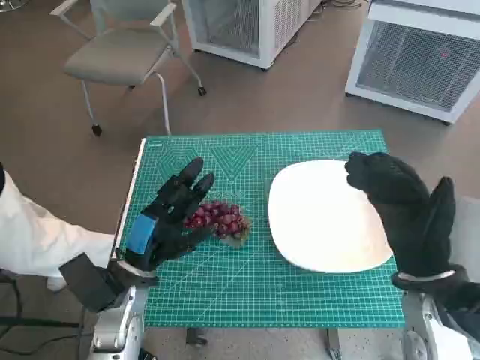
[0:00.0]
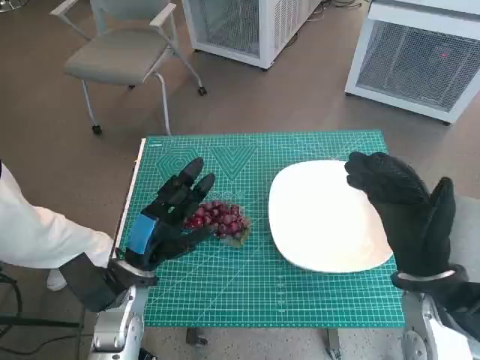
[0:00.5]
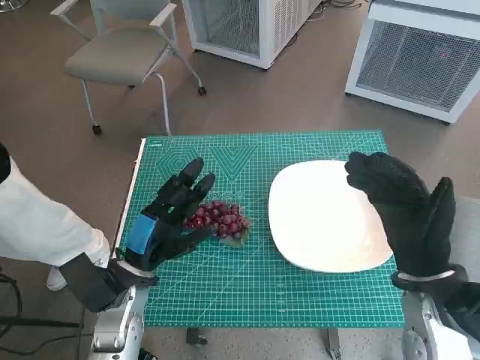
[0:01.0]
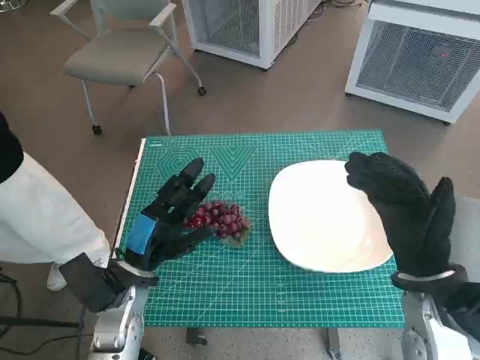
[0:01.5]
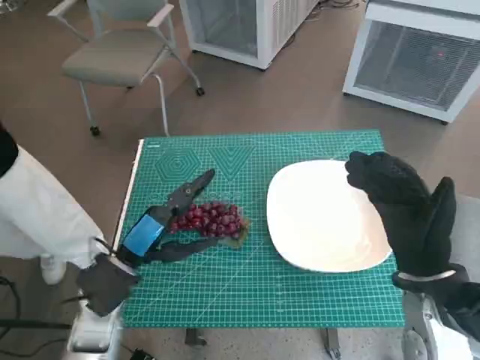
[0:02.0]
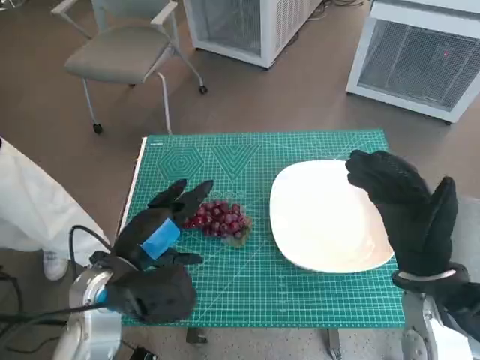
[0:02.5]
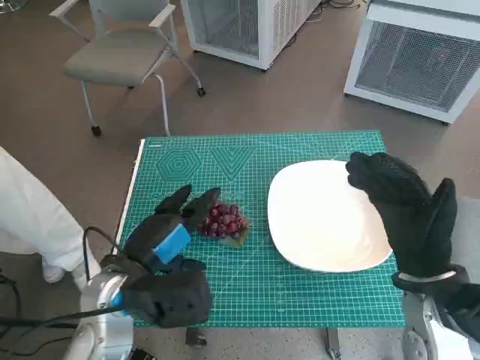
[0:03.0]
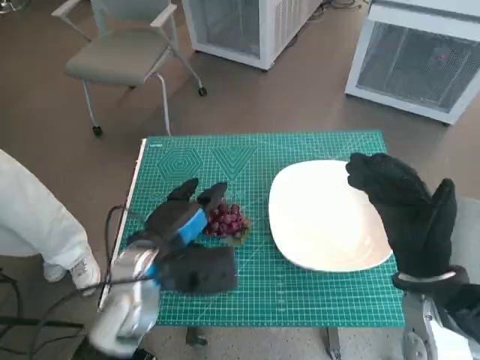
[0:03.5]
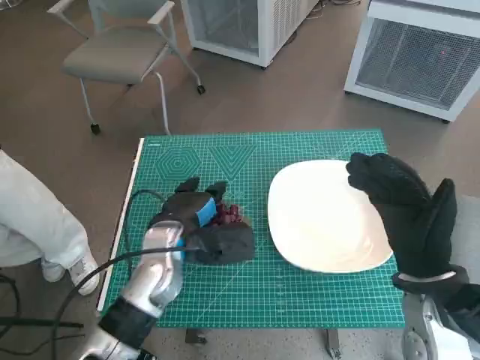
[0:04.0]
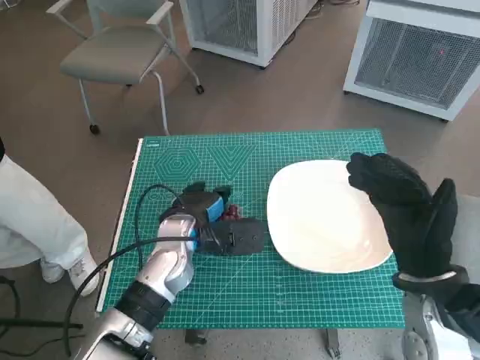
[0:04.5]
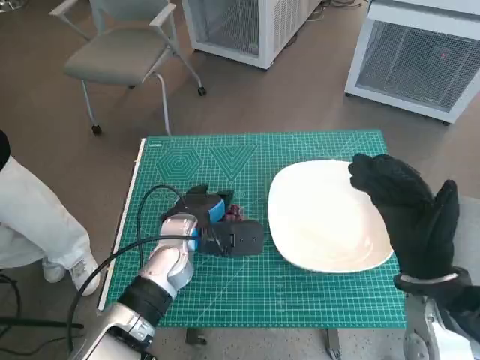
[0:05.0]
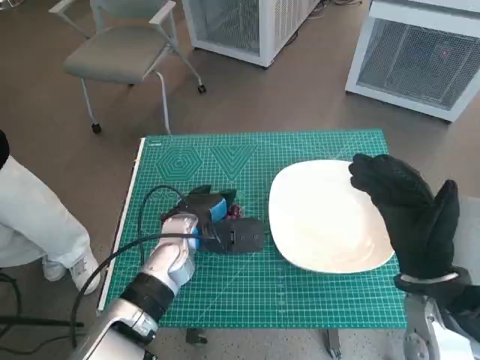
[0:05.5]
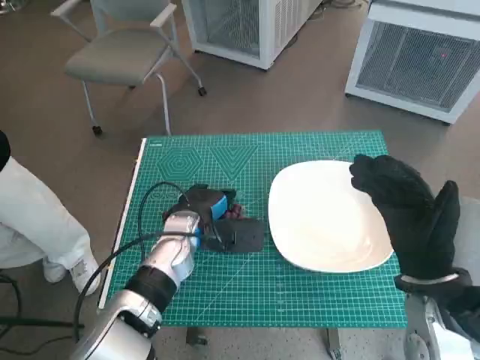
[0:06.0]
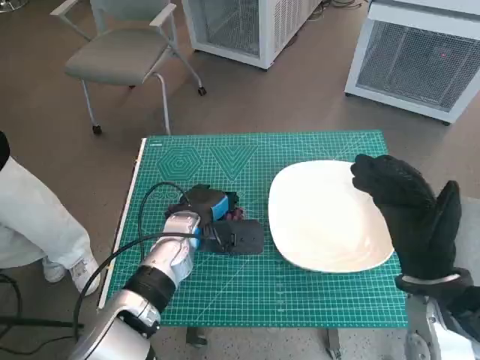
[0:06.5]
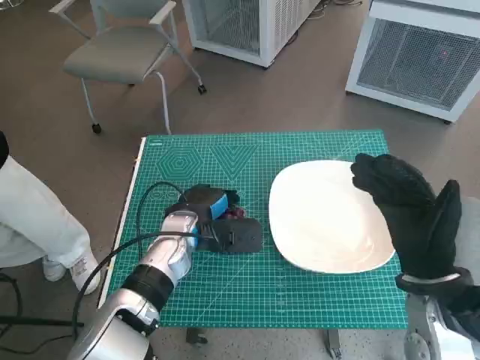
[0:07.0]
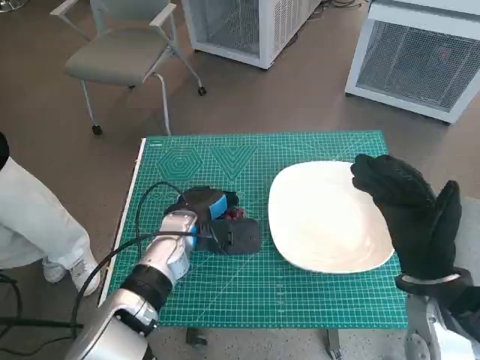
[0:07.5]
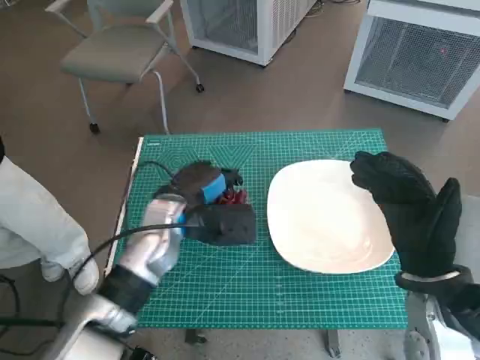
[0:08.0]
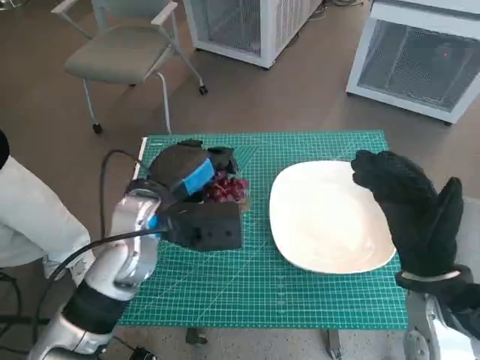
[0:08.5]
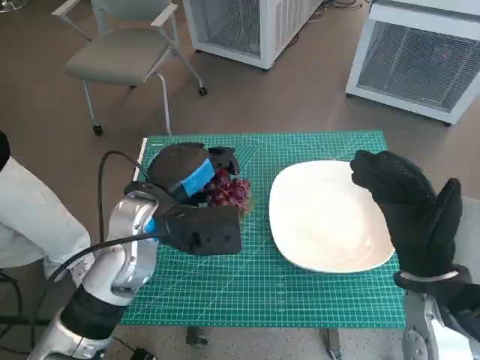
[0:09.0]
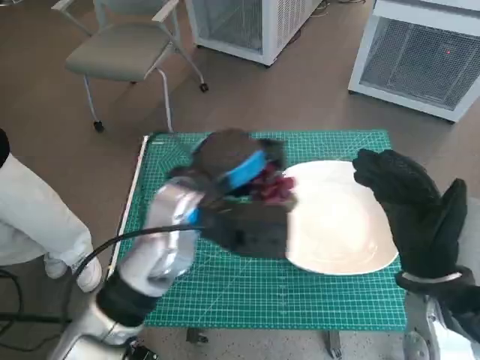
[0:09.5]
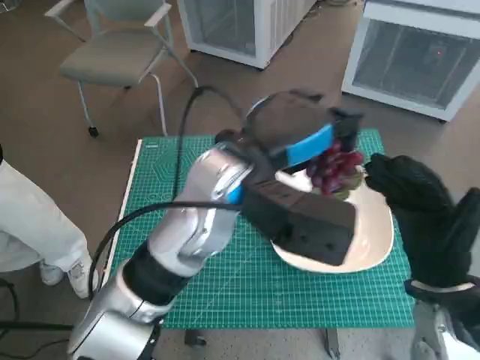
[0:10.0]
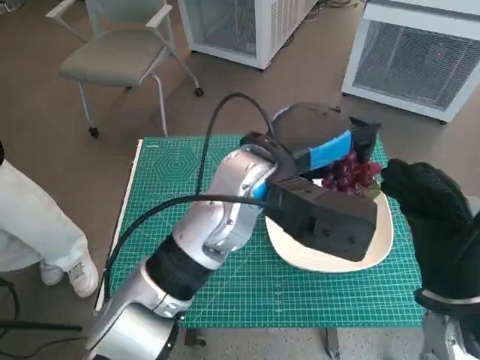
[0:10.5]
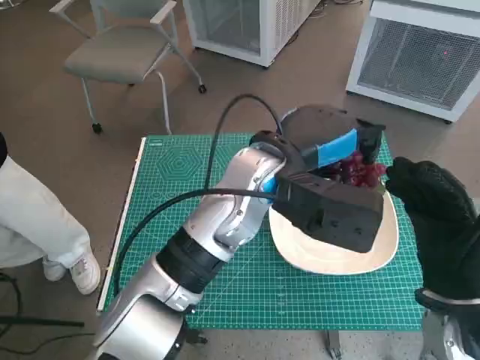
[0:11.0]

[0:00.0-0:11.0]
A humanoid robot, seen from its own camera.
Task of the whole recording: Pick up the grapes and put them on the plate.
Step, 0:00.0 to 0:07.0: Grasp the grapes with left hand.
0:02.0 to 0:03.5: The left hand travels to the right by roughly 5 cm.
0:03.5 to 0:05.5: The left hand goes roughly 10 cm forward.
0:05.5 to 0:07.5: The hands make only small movements.
0:07.5 to 0:09.0: The left hand goes approximately 10 cm upward.
0:09.0 to 0:11.0: The left hand moves to the right and upward, some 15 cm.

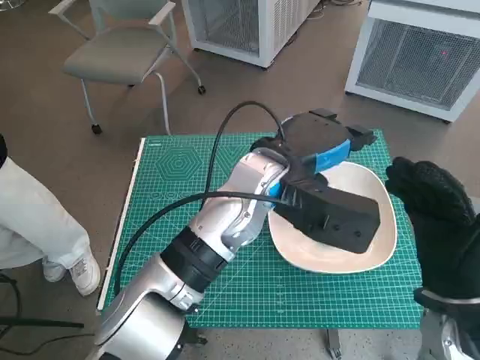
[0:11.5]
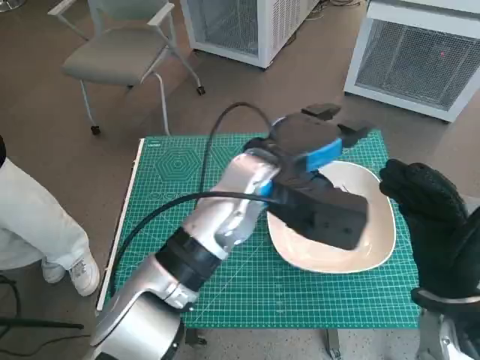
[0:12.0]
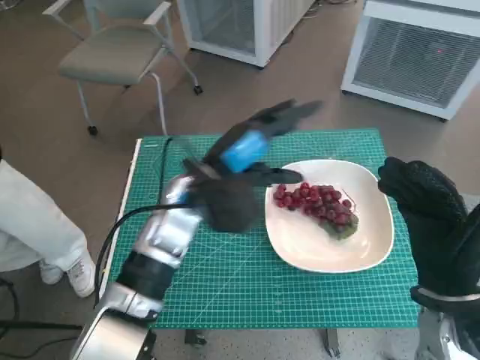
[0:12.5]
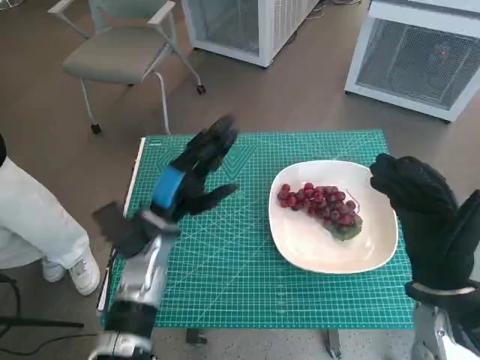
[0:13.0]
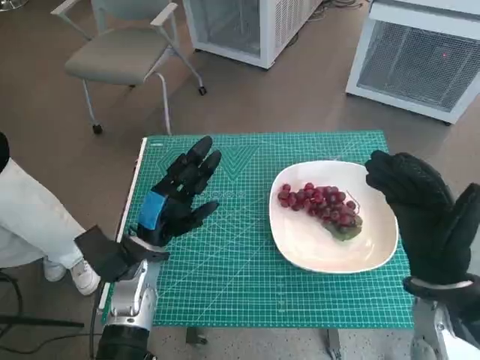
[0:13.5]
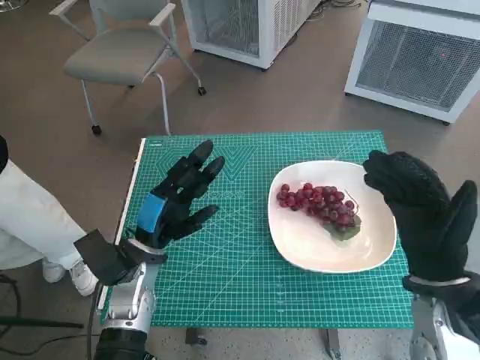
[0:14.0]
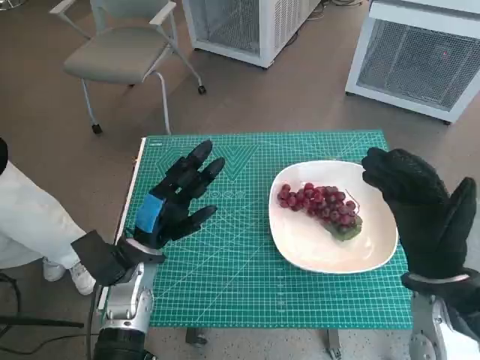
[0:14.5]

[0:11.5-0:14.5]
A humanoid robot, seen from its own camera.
Task of the whole recording: Pick up the grapes and put them on the plate.
0:11.5 to 0:13.0: The left hand travels to the left and downward by some 20 cm.
0:13.0 to 0:14.5: The left hand ends up some 5 cm from where it was.

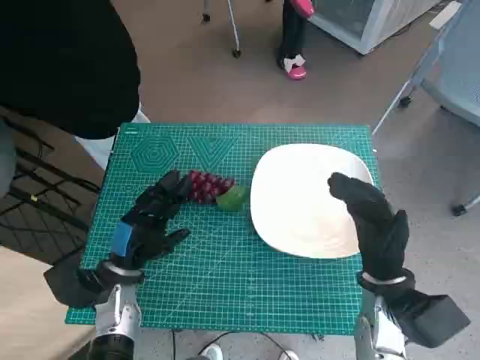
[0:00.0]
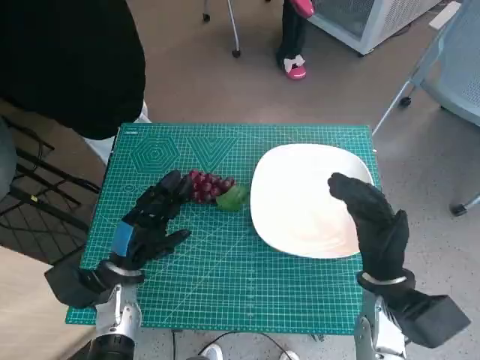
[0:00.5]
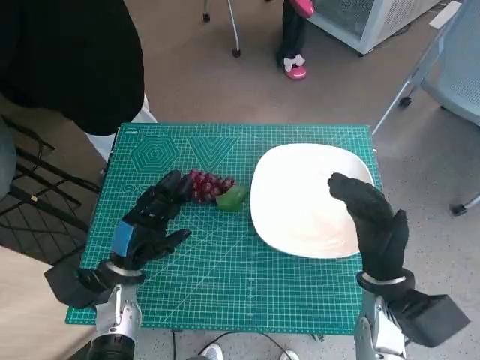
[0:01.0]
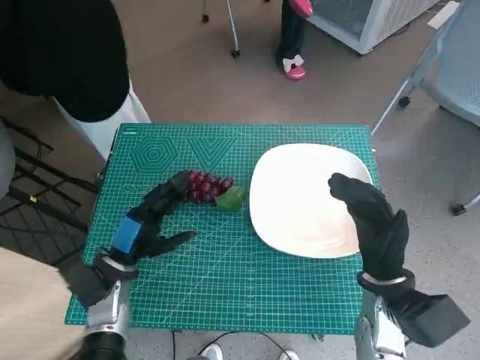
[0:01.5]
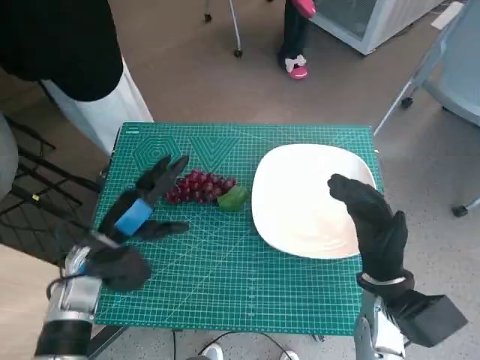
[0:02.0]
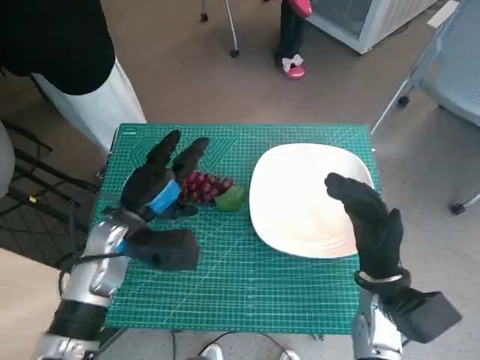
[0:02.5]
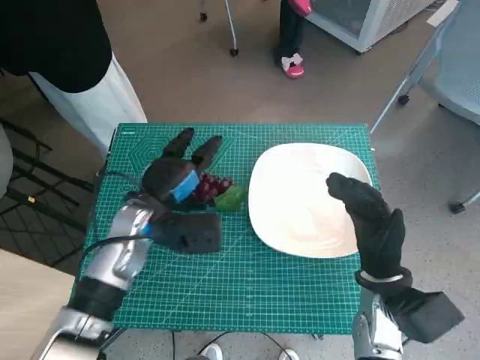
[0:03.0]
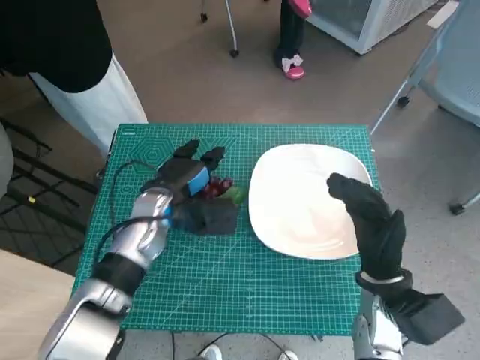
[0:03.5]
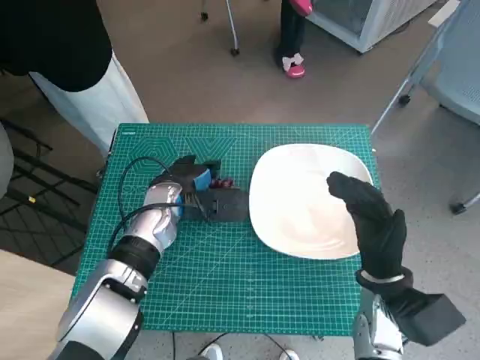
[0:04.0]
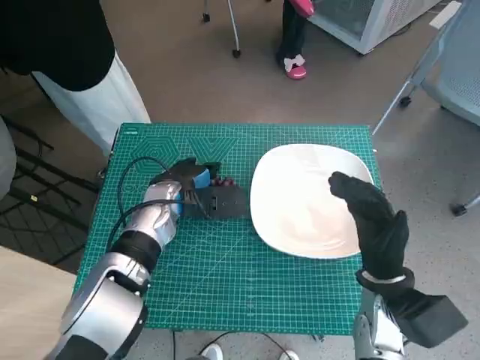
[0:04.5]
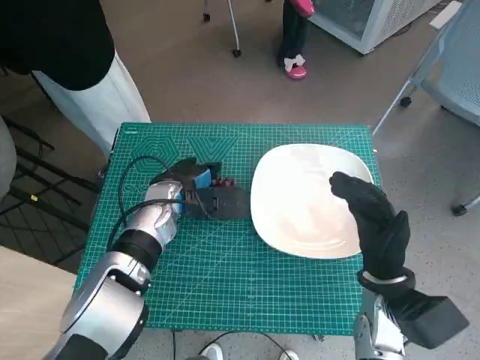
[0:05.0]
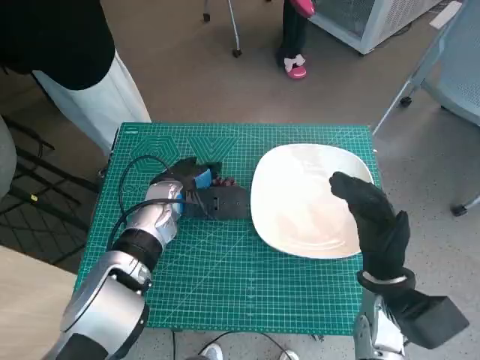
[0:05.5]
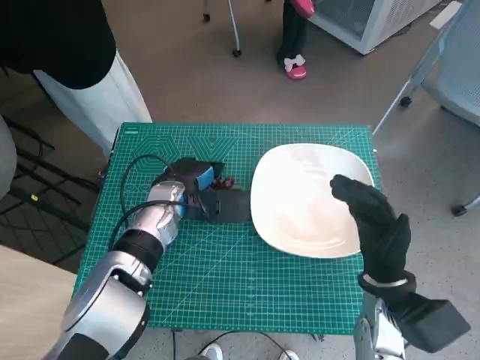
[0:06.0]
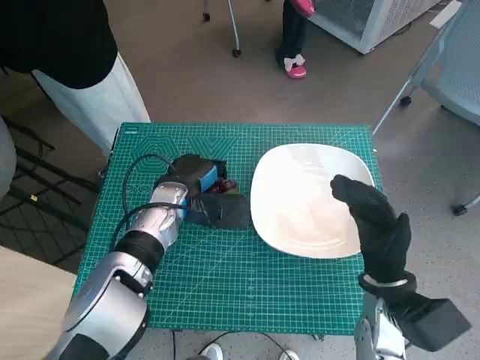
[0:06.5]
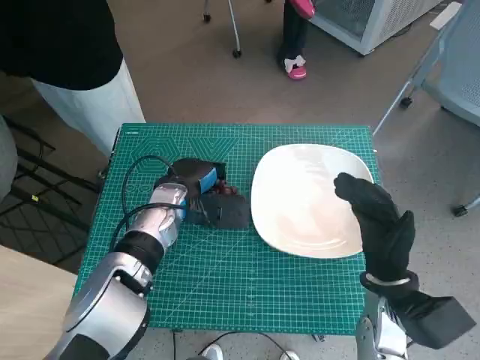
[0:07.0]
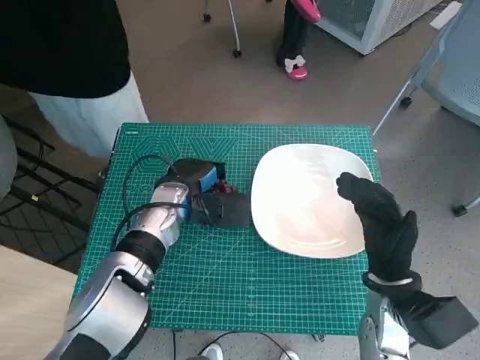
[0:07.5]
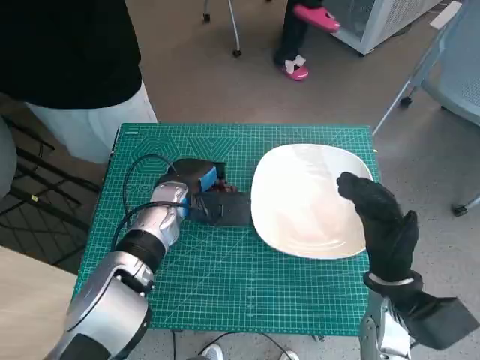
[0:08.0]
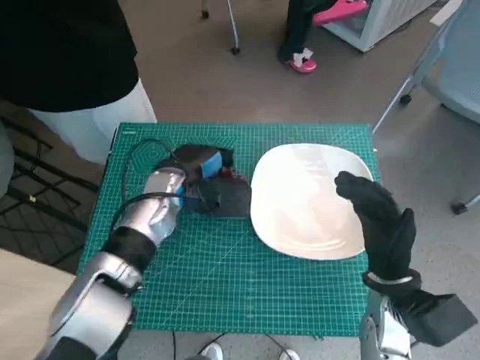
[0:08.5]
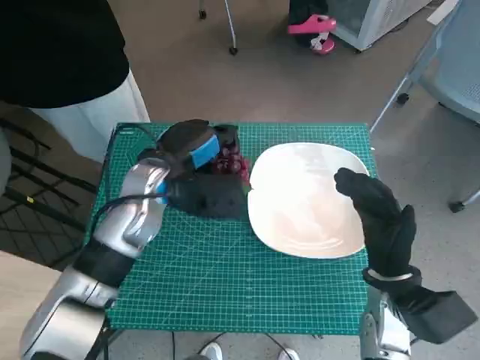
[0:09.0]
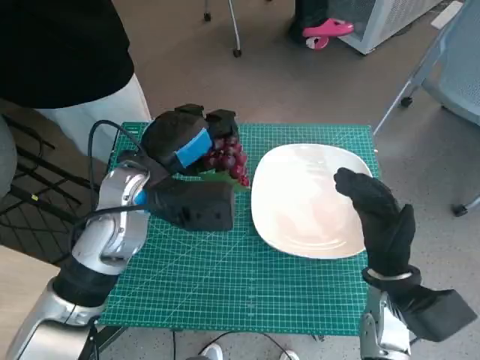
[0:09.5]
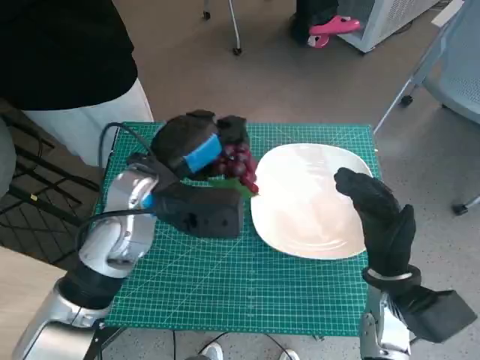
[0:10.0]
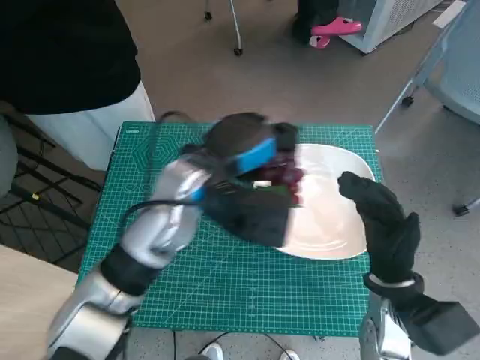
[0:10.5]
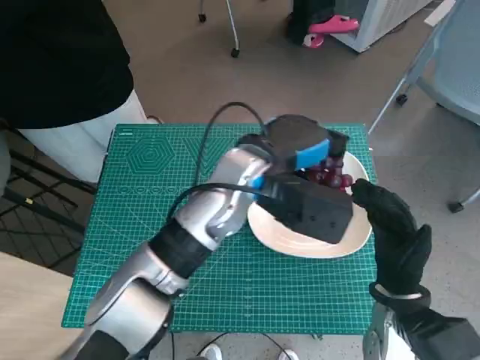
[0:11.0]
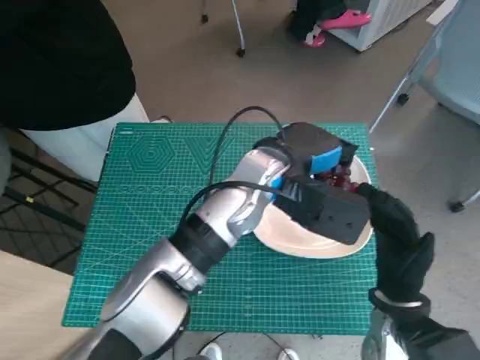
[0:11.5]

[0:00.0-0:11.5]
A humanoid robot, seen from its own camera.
Task of the whole recording: Pick up the grapes and put them on the plate.
Step, 0:00.0 to 0:06.5: Grasp the grapes with left hand.
0:02.0 to 0:04.0: The left hand moves to the right and forward, about 15 cm.
0:04.0 to 0:06.0: Both hands stay put.
0:06.0 to 0:07.5: The hands make only small movements.
0:07.5 to 0:09.5: The left hand goes approximately 10 cm upward.
0:09.5 to 0:11.5: The left hand goes some 15 cm to the right.
